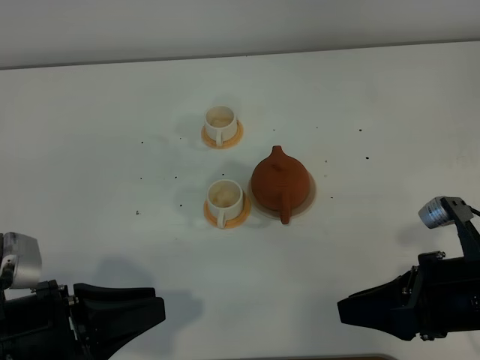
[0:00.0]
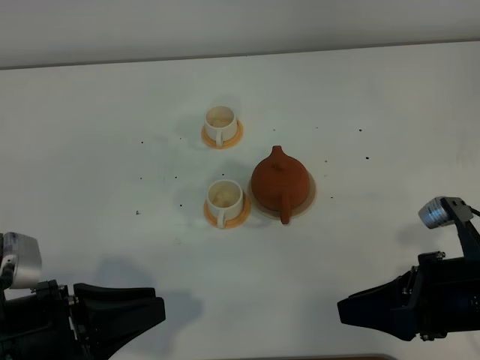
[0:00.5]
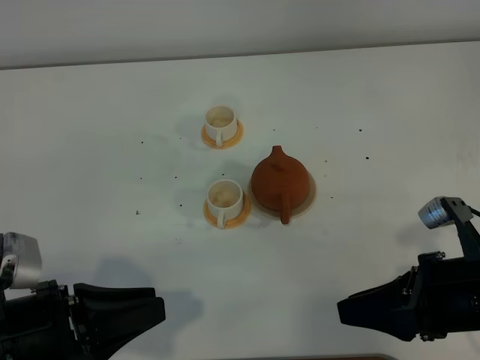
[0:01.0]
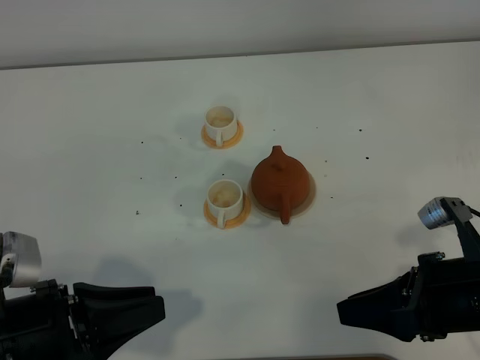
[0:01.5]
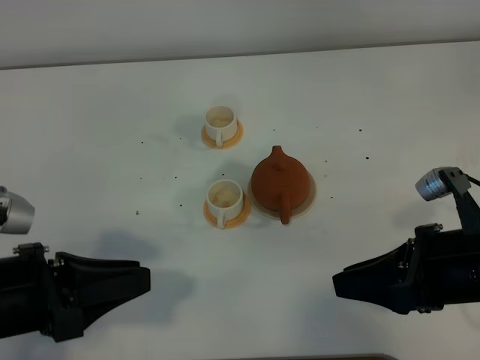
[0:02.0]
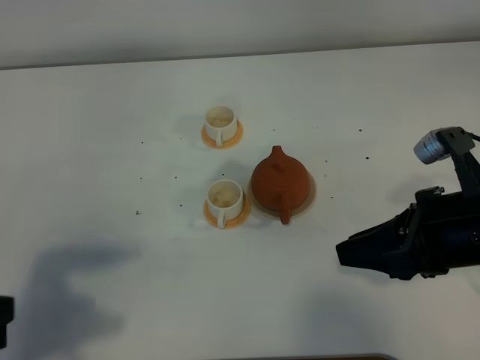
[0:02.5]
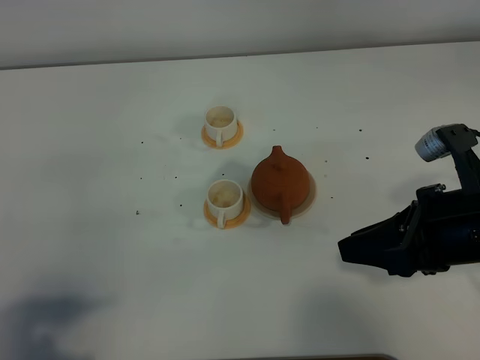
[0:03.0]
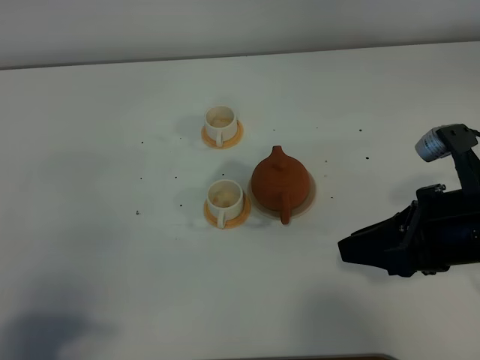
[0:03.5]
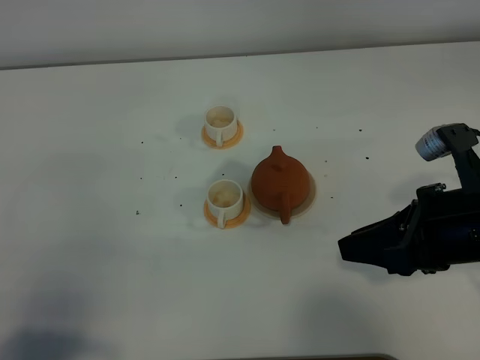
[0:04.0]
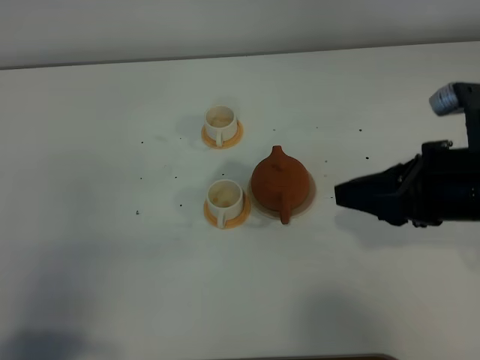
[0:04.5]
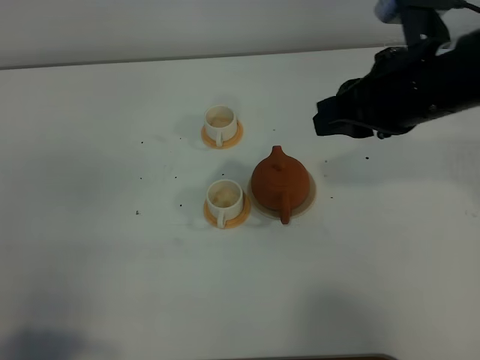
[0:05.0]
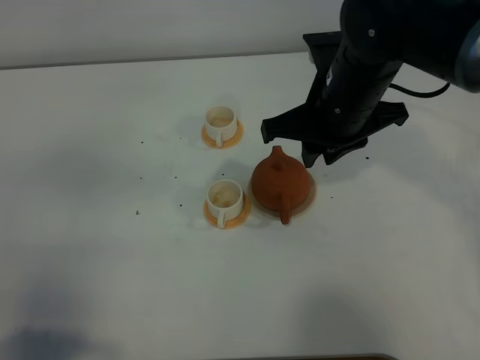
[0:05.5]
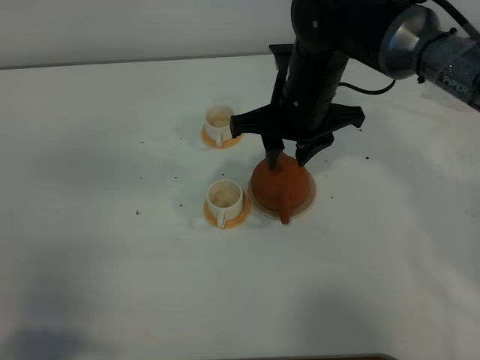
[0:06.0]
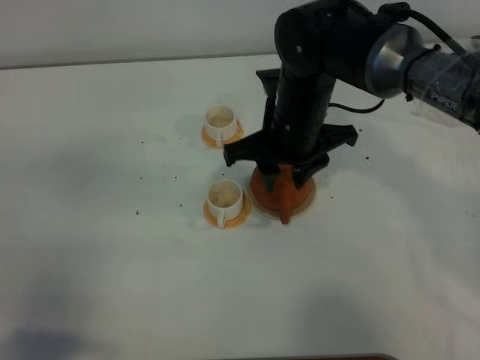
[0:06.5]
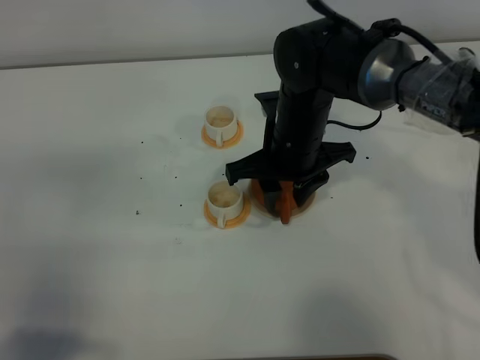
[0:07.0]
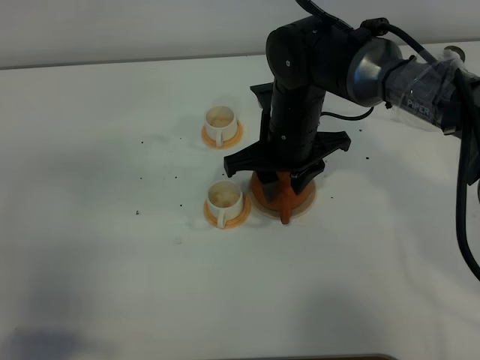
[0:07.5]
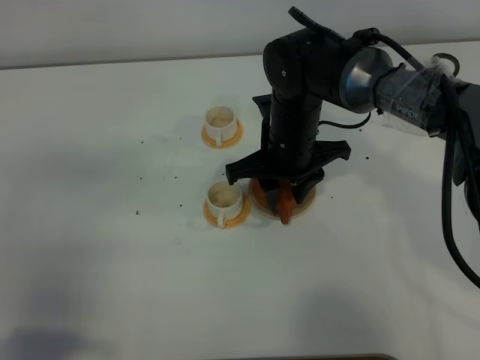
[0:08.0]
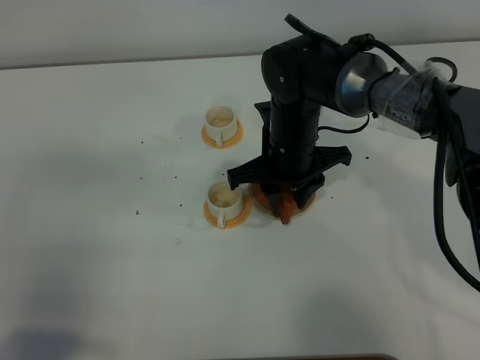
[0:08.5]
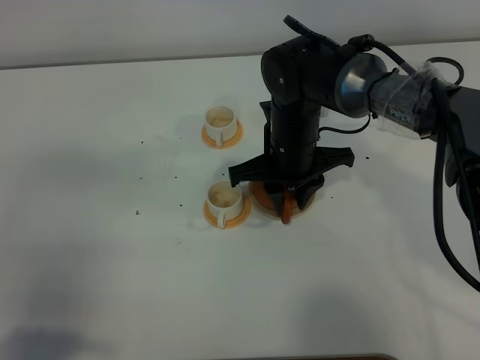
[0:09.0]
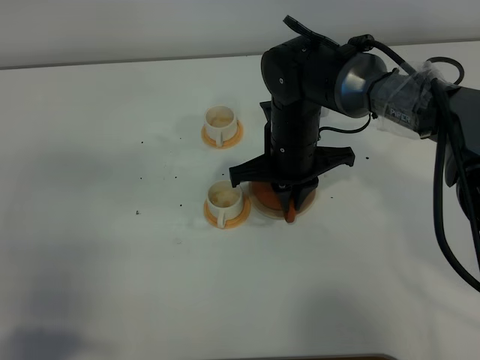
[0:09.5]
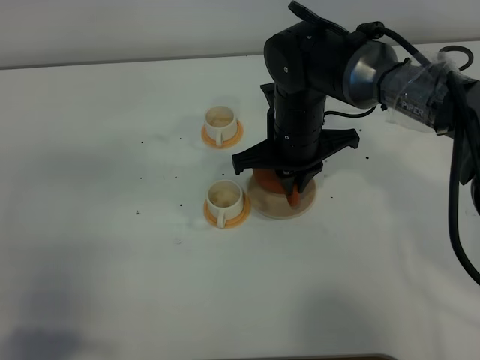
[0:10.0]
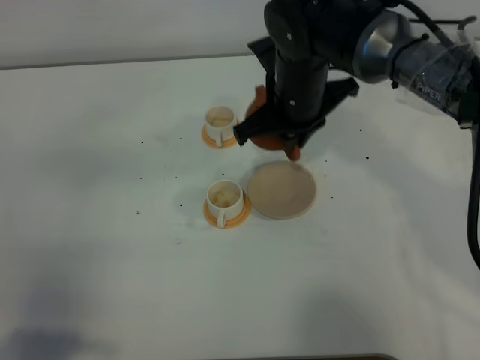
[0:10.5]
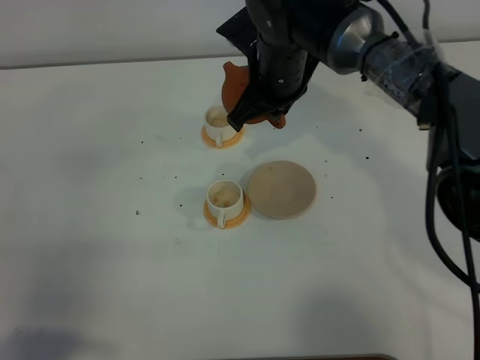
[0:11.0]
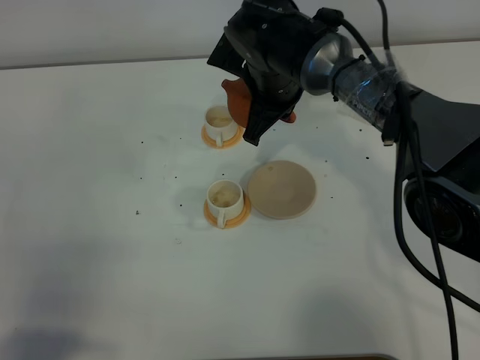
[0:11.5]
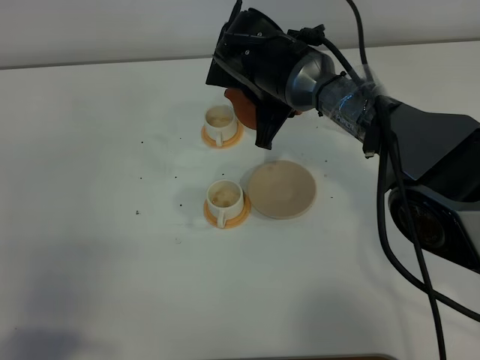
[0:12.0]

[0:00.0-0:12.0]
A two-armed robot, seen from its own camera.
Task of the whole recording: grasp the brown teapot and pour the tea into the two white teacups one by one, put the brown teapot back in its original place.
Step, 0.0 to 10.0 s: Pick up the teapot with the right gripper.
0.0 to 2.0 s: The left gripper changes place by about 5 cm.
2.0 to 4.0 s: The left gripper shifts some 15 cm backward and to the left.
4.0 to 6.0 s: The right gripper shifts roughly 25 cm to the left and forward.
6.0 to 8.0 s: The right gripper moves downward, about 5 cm.
8.0 to 10.0 s: The right gripper closes its fingers.
10.0 to 12.0 s: The right gripper goes roughly 5 cm forward.

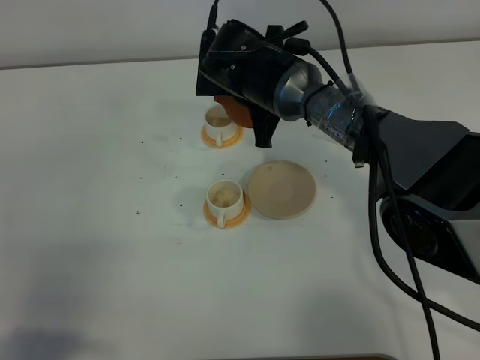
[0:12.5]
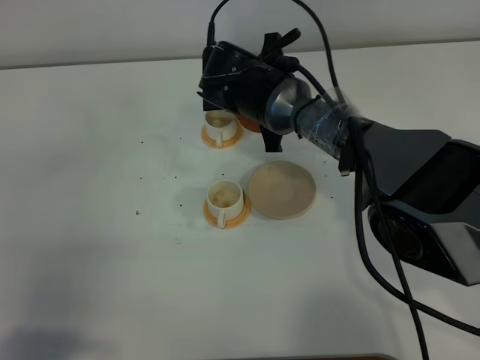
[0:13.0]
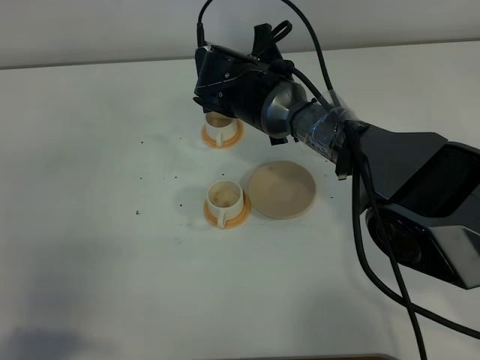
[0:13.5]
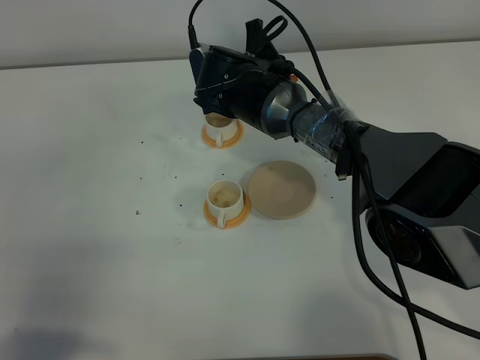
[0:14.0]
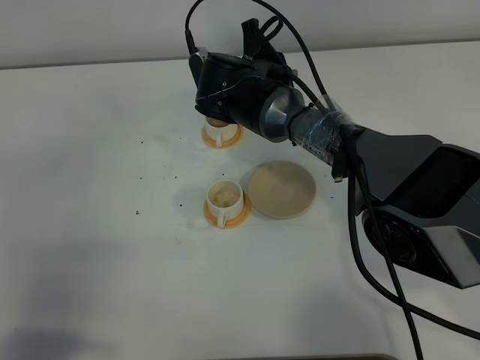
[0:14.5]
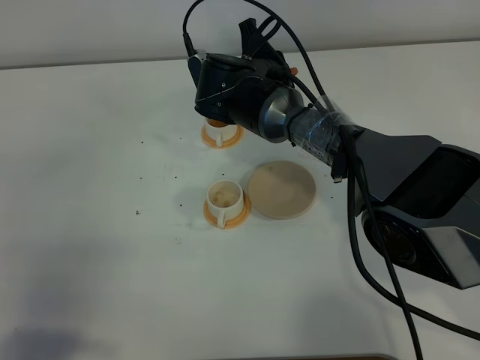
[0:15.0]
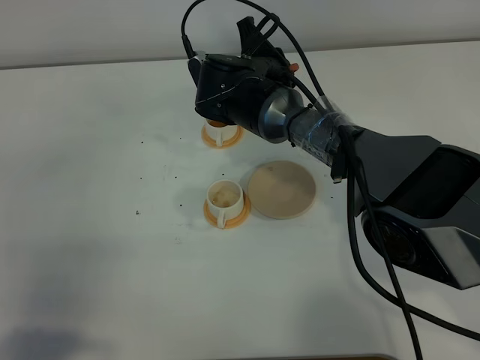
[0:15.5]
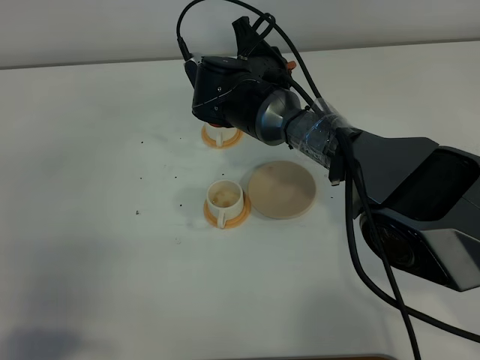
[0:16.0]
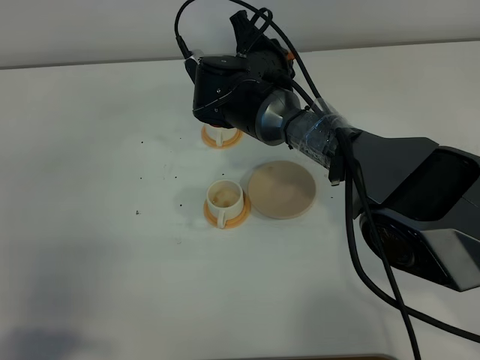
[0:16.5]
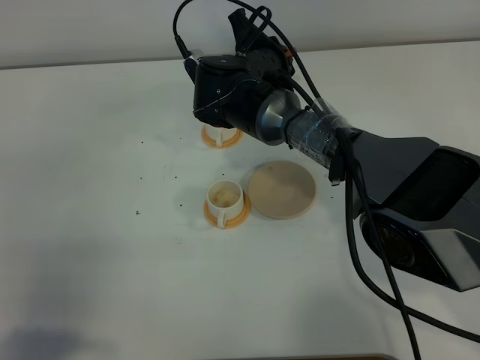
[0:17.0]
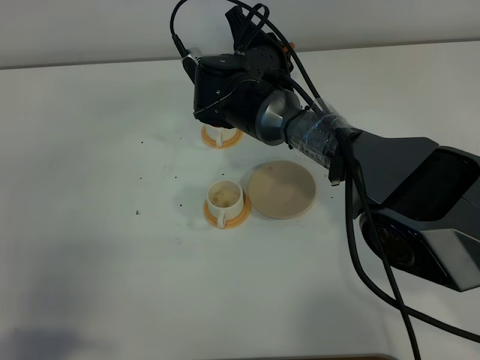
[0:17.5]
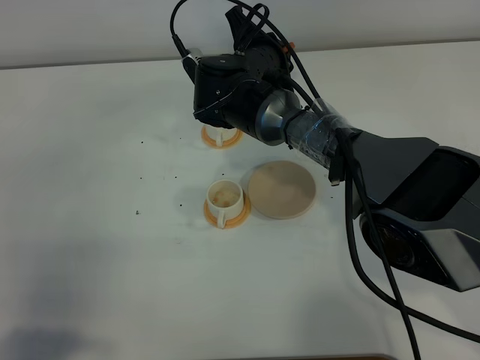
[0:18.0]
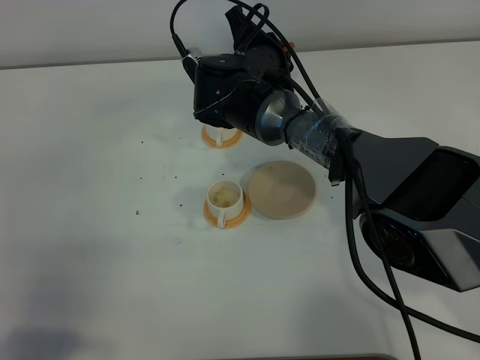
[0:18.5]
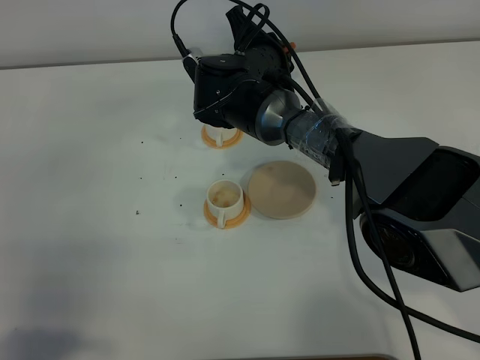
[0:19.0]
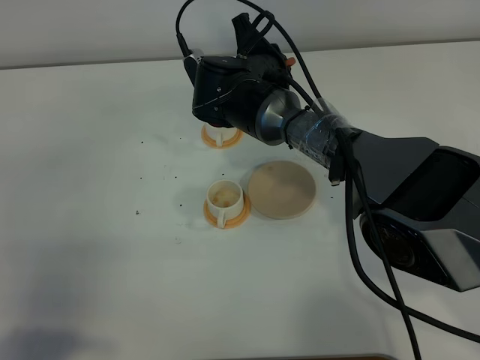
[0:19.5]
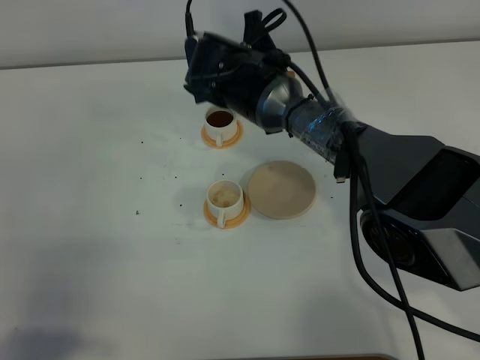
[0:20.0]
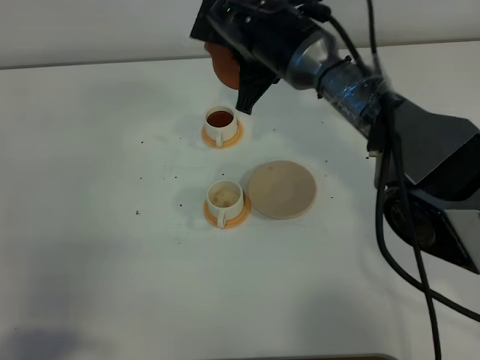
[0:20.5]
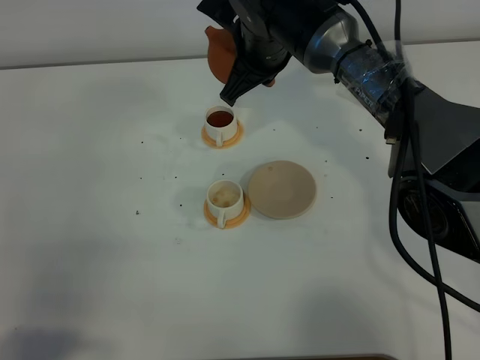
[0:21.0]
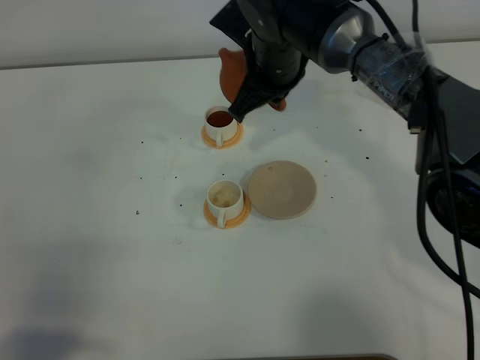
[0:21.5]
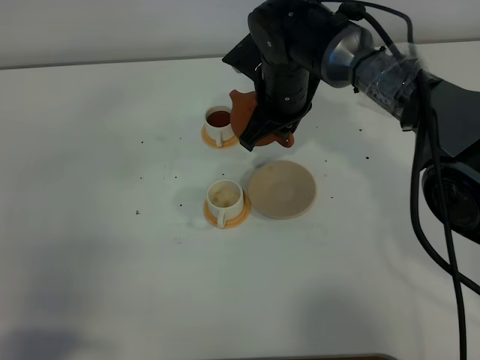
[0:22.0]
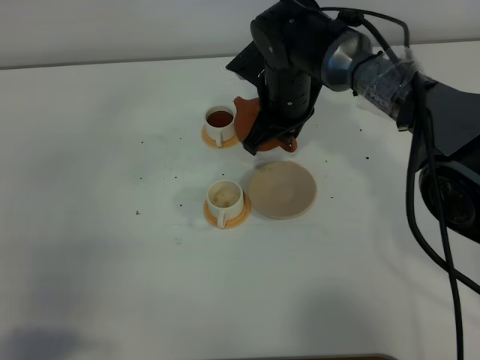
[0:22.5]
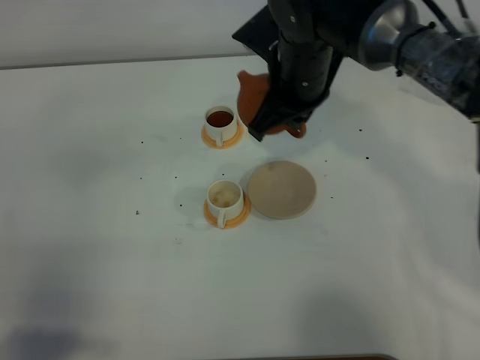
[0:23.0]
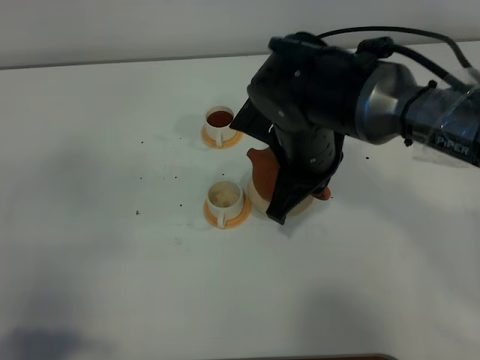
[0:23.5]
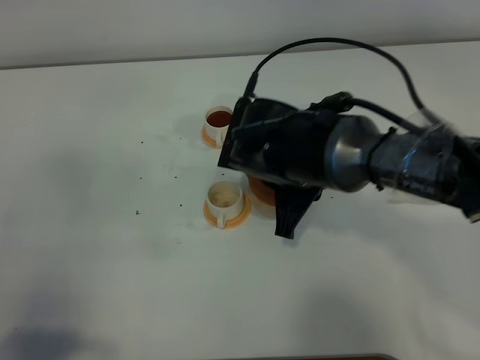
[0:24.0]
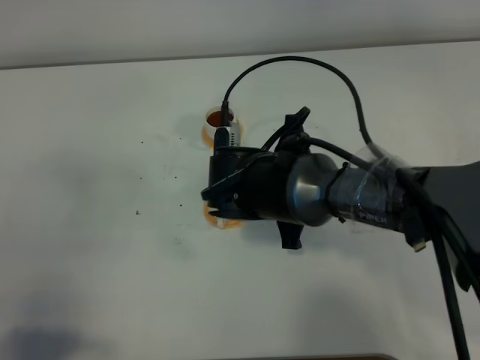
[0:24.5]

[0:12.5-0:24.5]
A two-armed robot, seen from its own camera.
Task of the whole recording: grasp the brown teapot and pour the tea into the two white teacups one by one, put the brown teapot back in its original place.
Step, 12.5 to 19.5 s: Pour tea into the teacup with the right gripper.
14.5 to 16.5 s: The grippers move only a little.
16.5 to 18.5 s: Both grippers stay about where they are.
18.5 to 20.5 s: The right gripper is displaced upward by about 5 cm.
20.5 to 22.5 s: The right gripper ends up some 5 cm from where it was.
22.5 to 24.5 s: The right gripper shifts approximately 15 cm backward.

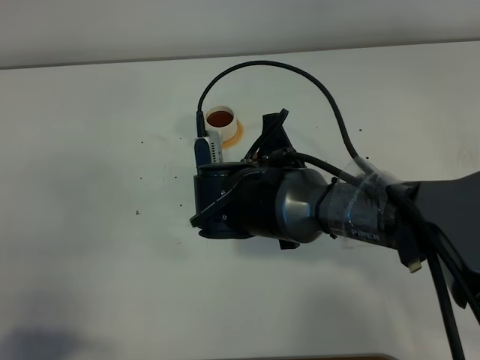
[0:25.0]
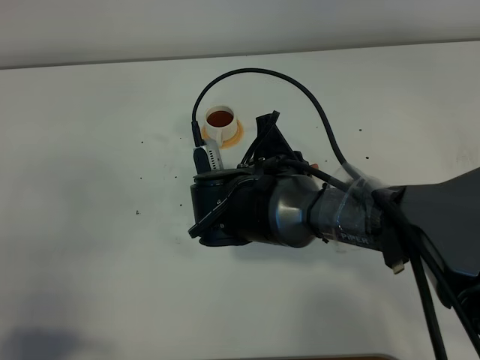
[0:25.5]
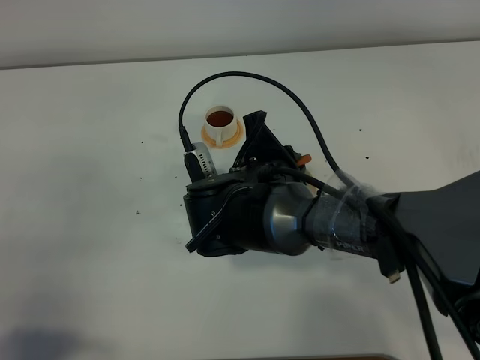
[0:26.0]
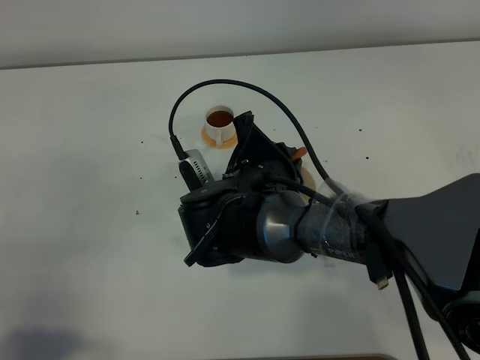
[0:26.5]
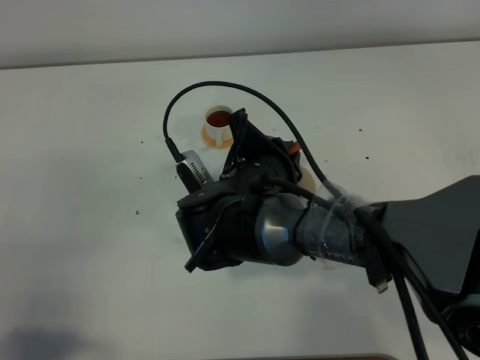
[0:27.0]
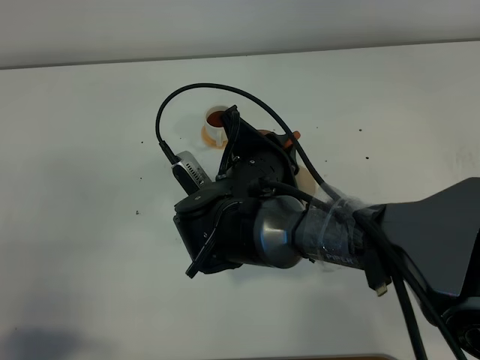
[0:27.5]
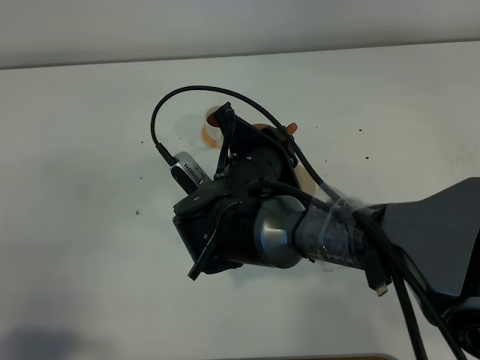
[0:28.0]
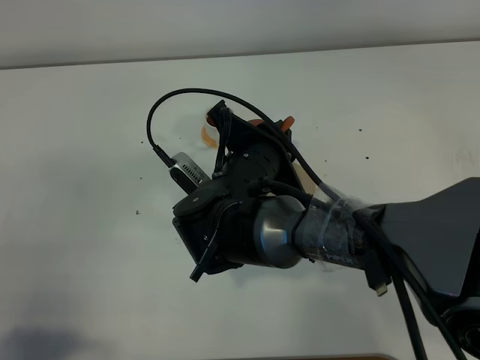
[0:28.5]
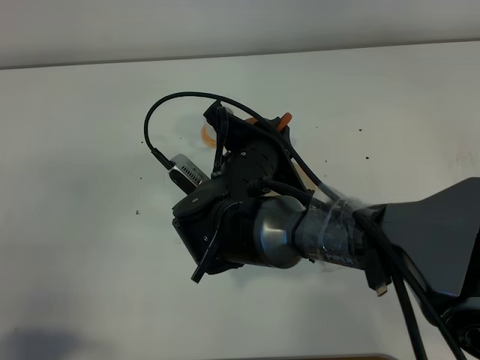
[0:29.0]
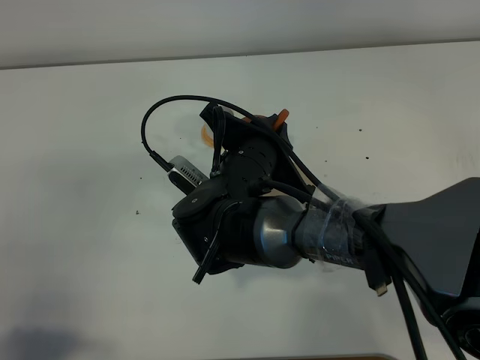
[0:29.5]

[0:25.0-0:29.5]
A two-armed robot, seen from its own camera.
Task of the whole recording: grasp the brown teapot and pour the tea into the two white teacups one by one, put the brown teapot back in its original place.
27.0 to 29.5 s: The grippers make only small movements.
